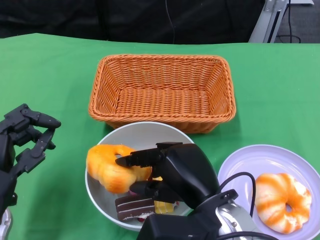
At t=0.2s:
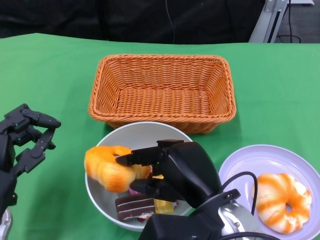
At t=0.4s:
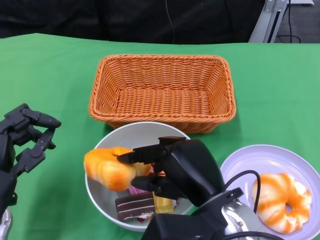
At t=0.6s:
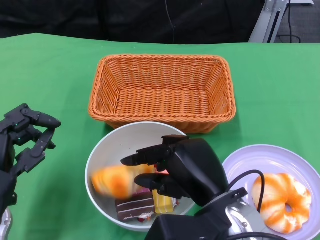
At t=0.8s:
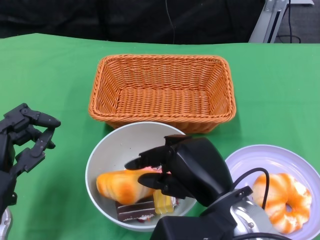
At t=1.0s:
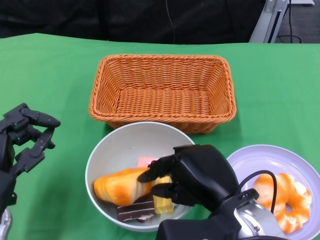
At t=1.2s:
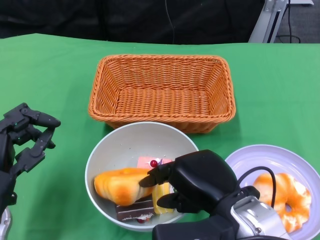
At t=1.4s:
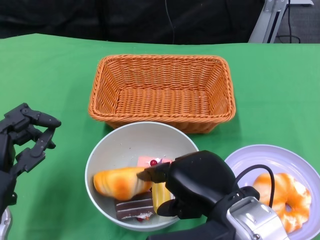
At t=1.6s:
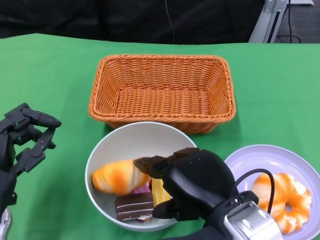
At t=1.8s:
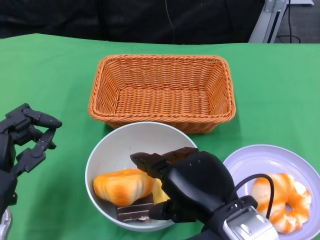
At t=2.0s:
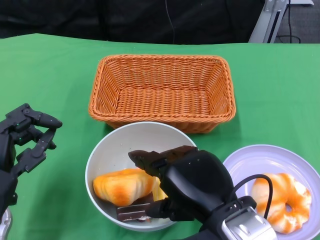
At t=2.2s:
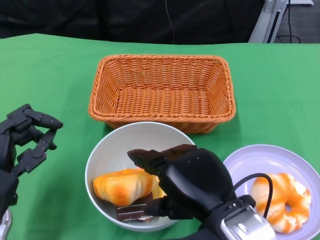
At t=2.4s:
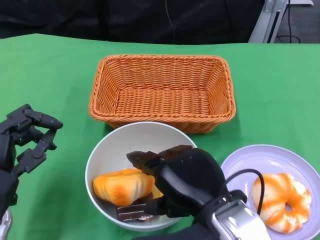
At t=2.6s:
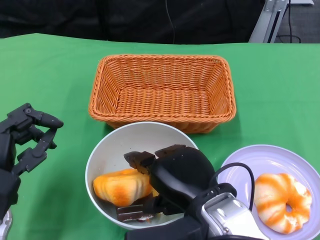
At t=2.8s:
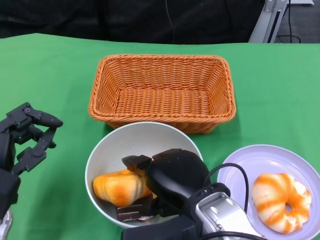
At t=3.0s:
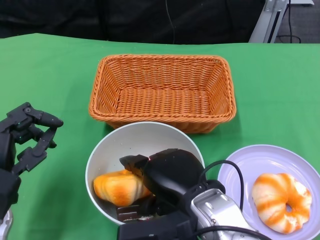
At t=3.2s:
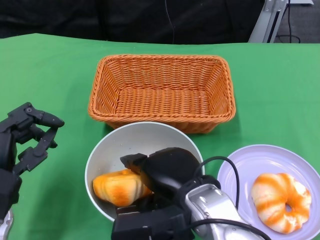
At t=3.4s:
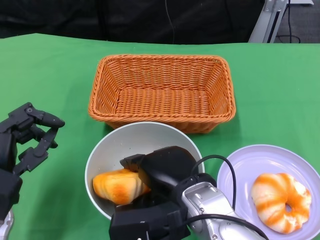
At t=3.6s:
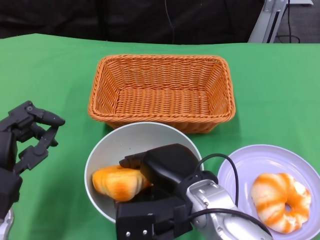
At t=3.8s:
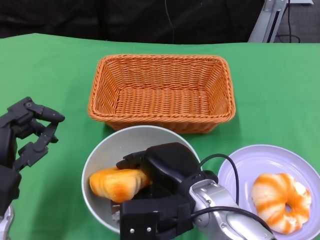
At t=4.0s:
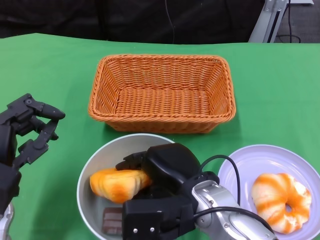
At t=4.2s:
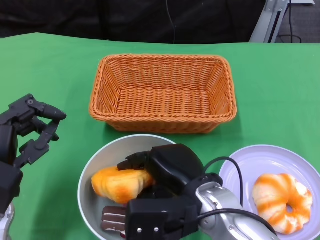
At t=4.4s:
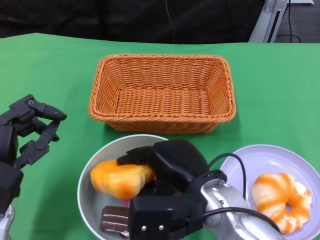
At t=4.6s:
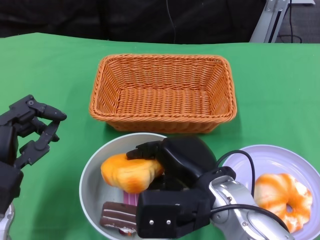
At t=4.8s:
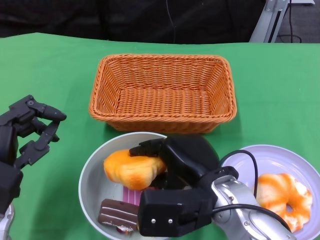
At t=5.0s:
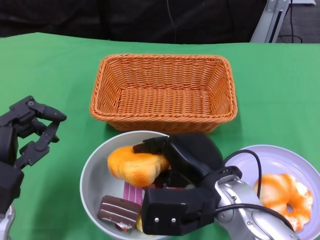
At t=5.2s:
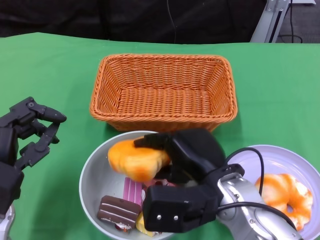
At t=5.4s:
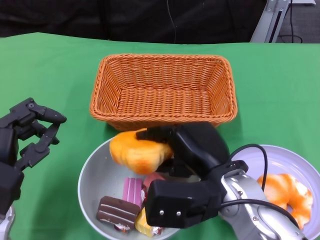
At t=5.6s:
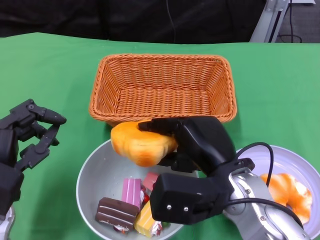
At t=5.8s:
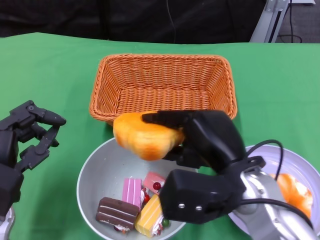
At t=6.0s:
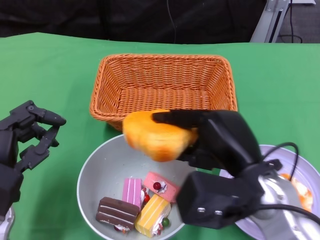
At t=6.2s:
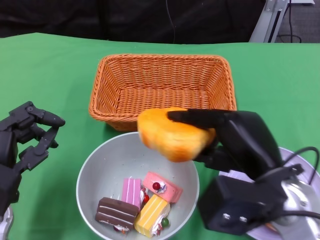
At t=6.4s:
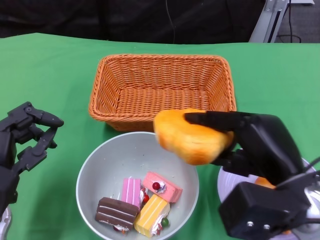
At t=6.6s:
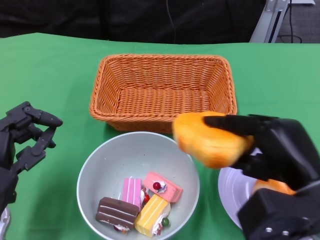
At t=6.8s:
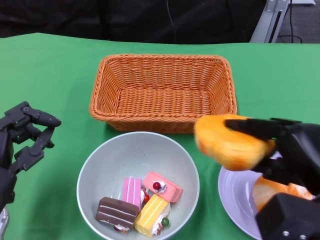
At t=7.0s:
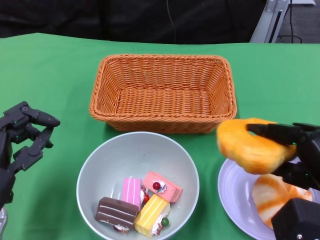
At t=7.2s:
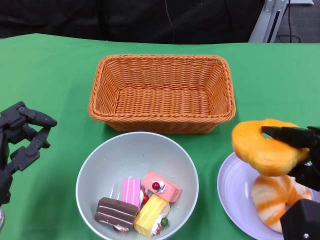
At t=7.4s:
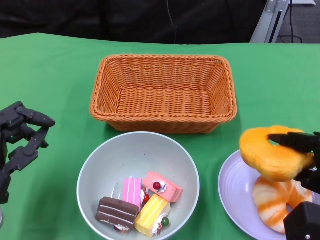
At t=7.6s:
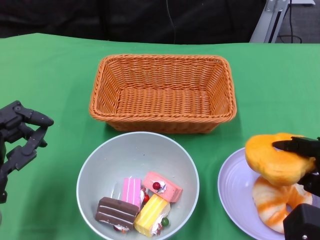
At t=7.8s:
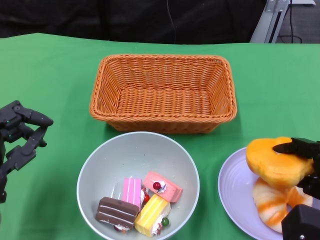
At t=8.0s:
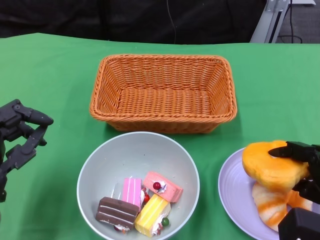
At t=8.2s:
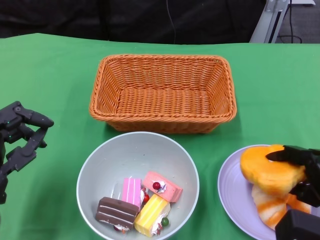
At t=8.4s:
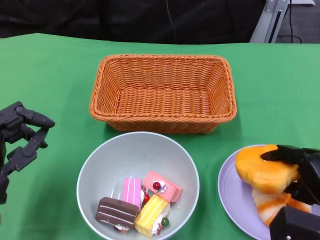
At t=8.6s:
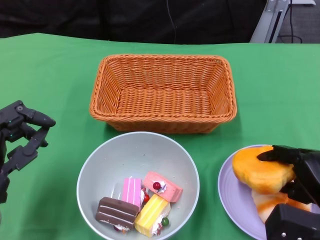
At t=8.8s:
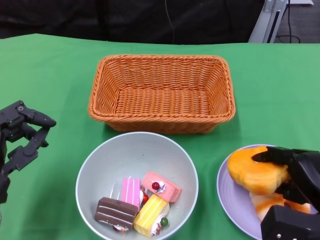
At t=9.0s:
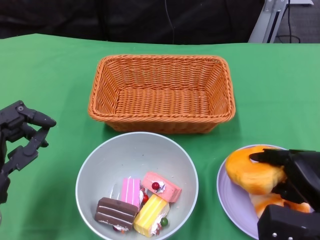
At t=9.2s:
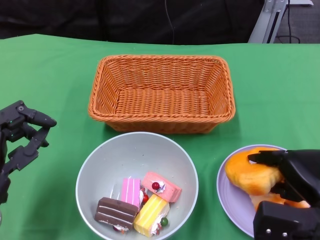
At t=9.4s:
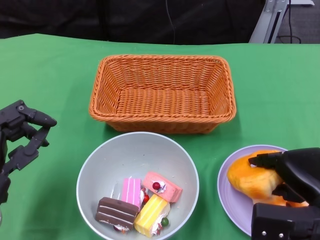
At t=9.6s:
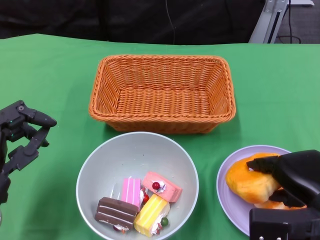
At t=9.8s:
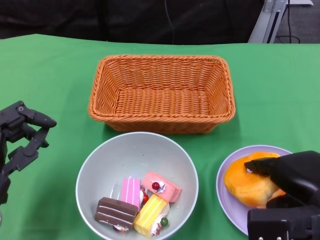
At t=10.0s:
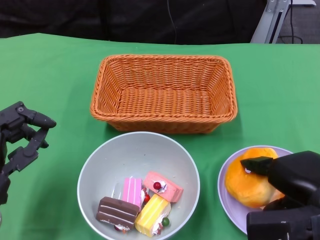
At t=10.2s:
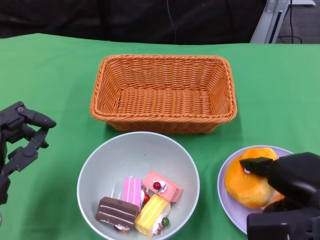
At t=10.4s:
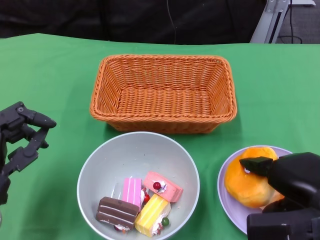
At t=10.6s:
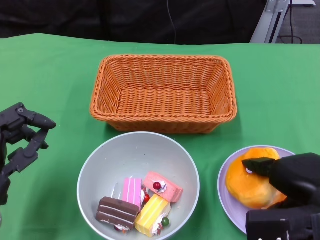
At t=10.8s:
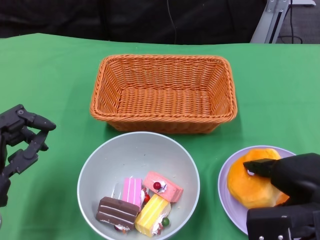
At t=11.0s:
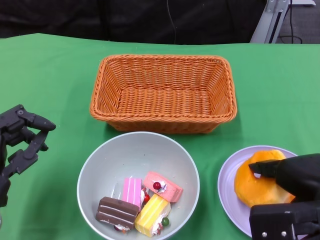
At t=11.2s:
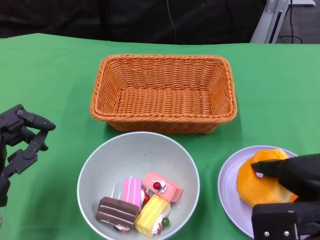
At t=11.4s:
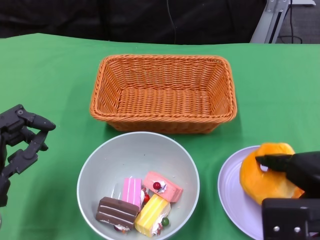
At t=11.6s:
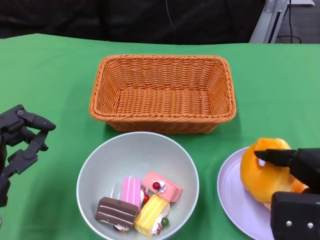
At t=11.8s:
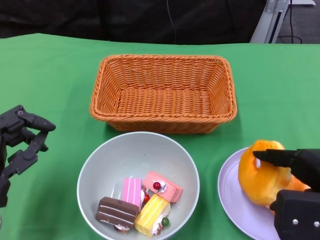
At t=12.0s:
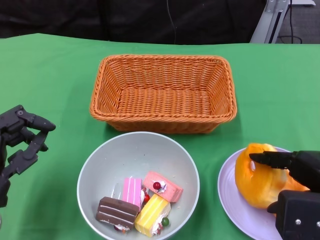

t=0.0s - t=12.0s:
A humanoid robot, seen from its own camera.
t=0.0s - t=1.6s: The right hand changes place by some 5 cm.
t=1.6s - t=3.0s: The right hand moves about 5 cm.
t=3.0s - t=4.4s: The hands move only a little.
t=4.4s - t=6.0s: The right hand heads to the right, covering about 5 cm.
t=6.0s - t=7.6s: The right hand heads to the right and downward, covering approximately 15 cm.
t=7.6s - t=9.0s: The hands make only small movements.
t=9.0s - t=10.4s: The right hand heads upward, covering some 5 cm.
t=10.4s - t=12.0s: The hands stay close to where they were, moving slightly.

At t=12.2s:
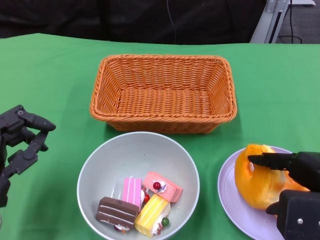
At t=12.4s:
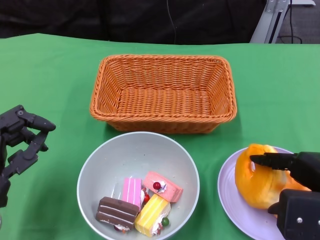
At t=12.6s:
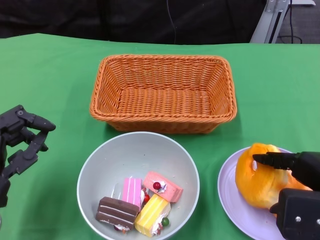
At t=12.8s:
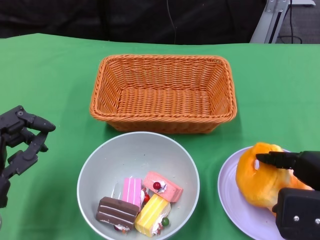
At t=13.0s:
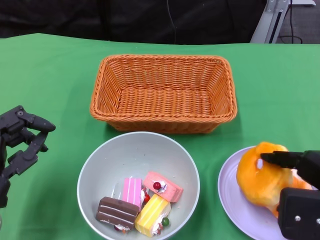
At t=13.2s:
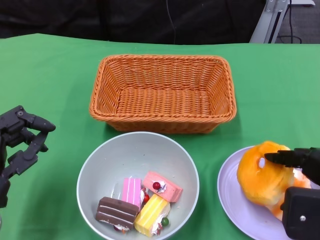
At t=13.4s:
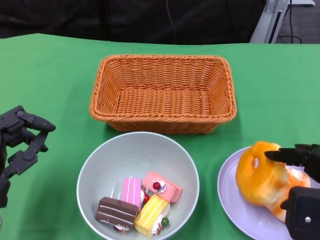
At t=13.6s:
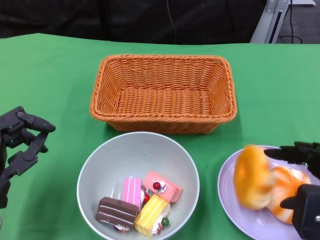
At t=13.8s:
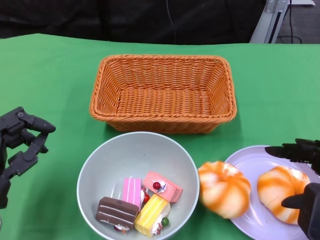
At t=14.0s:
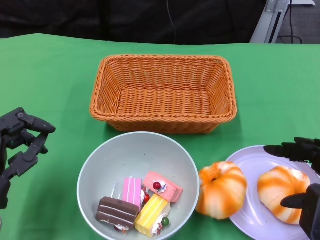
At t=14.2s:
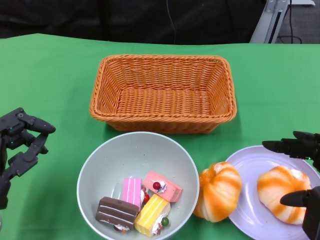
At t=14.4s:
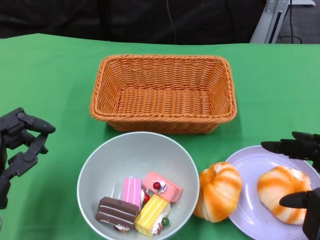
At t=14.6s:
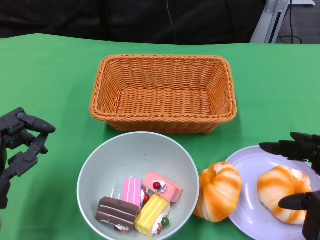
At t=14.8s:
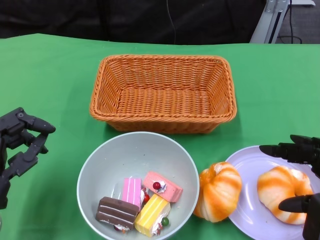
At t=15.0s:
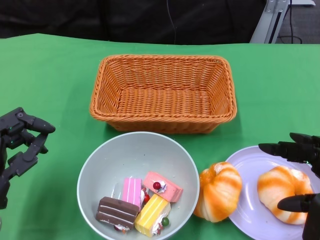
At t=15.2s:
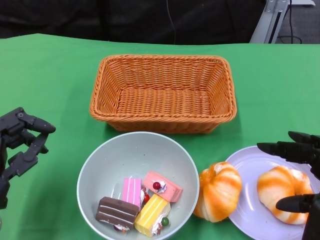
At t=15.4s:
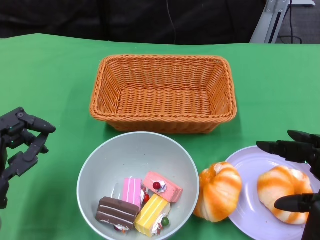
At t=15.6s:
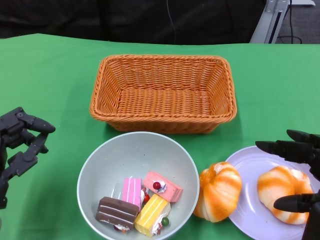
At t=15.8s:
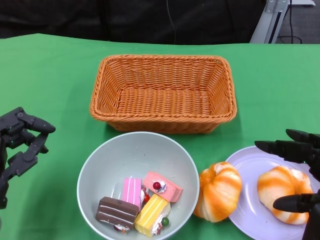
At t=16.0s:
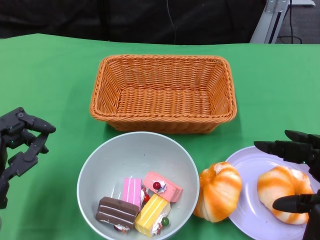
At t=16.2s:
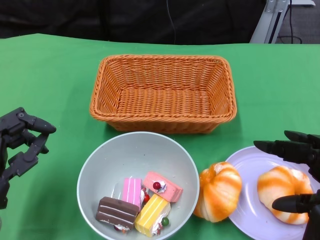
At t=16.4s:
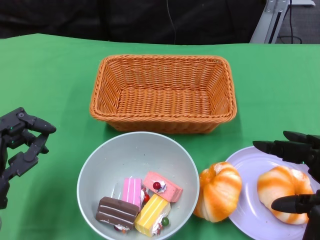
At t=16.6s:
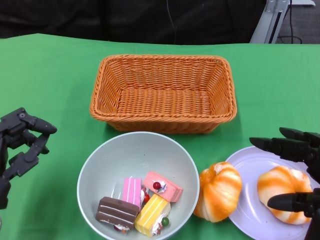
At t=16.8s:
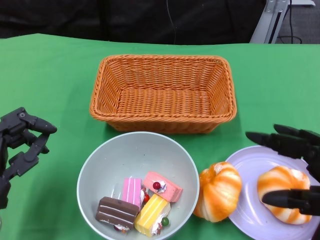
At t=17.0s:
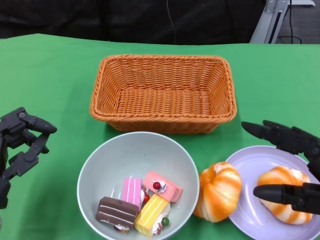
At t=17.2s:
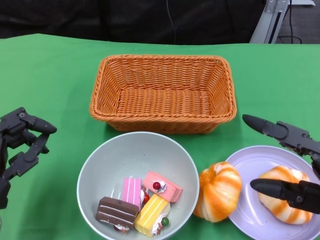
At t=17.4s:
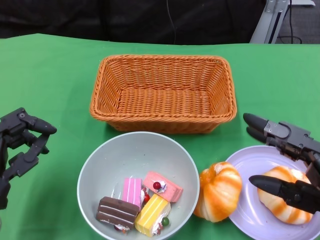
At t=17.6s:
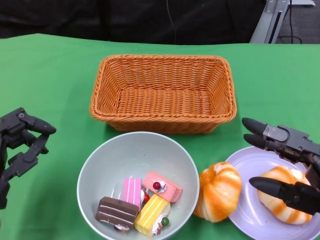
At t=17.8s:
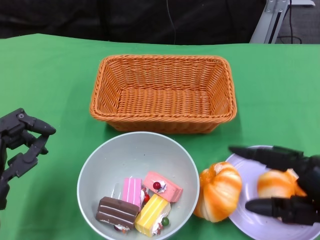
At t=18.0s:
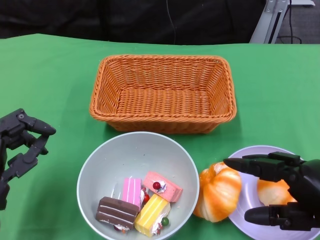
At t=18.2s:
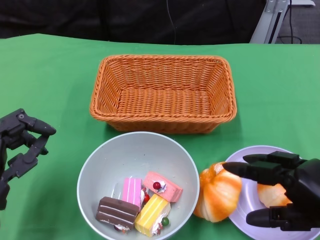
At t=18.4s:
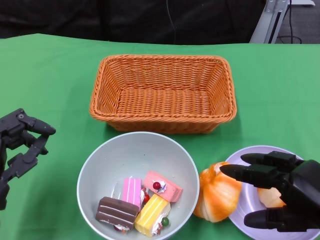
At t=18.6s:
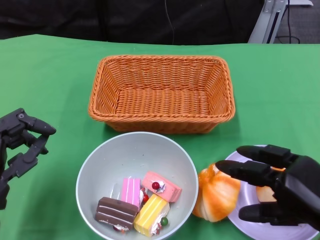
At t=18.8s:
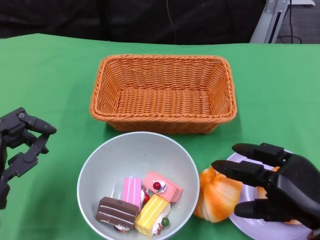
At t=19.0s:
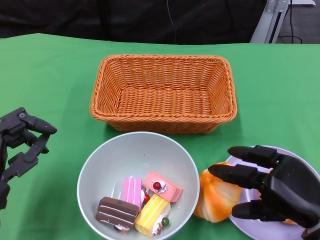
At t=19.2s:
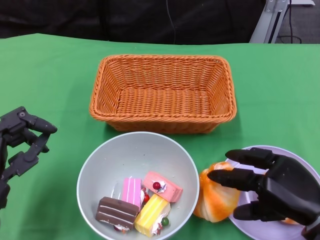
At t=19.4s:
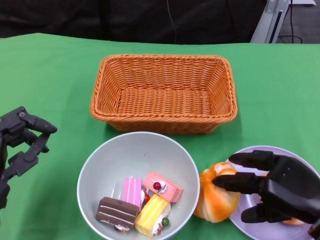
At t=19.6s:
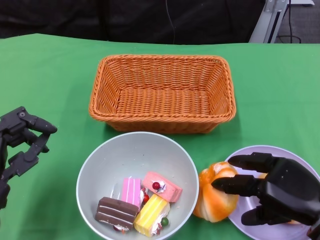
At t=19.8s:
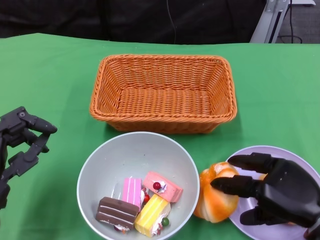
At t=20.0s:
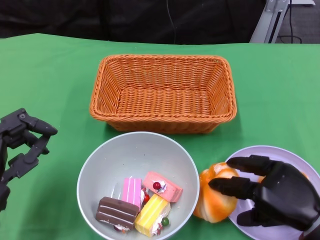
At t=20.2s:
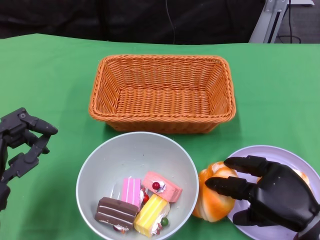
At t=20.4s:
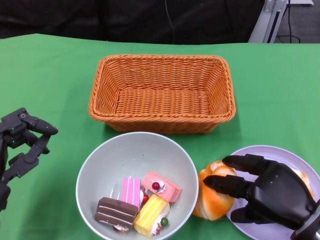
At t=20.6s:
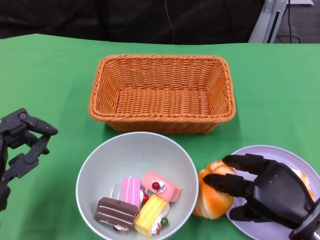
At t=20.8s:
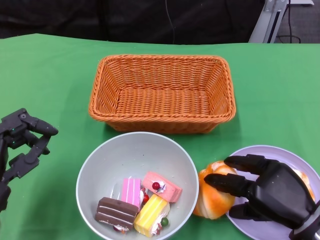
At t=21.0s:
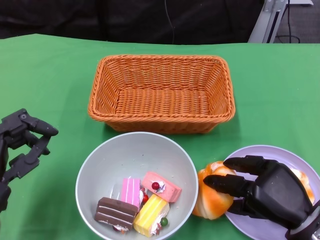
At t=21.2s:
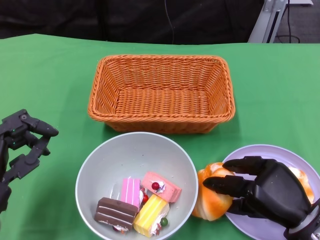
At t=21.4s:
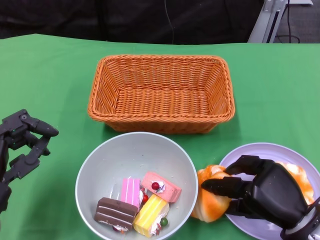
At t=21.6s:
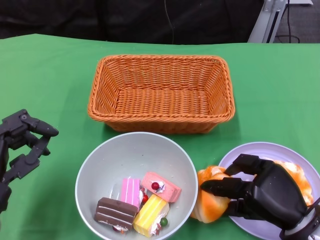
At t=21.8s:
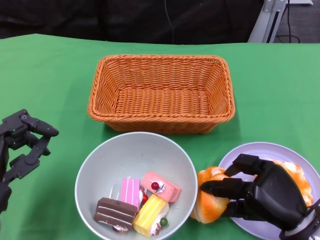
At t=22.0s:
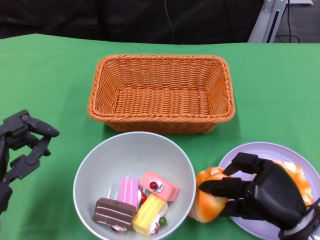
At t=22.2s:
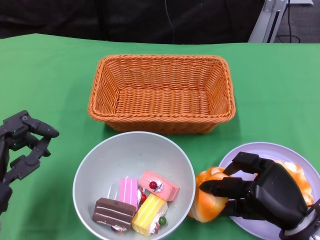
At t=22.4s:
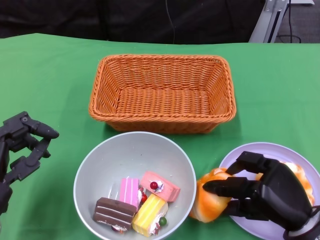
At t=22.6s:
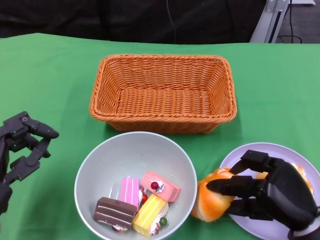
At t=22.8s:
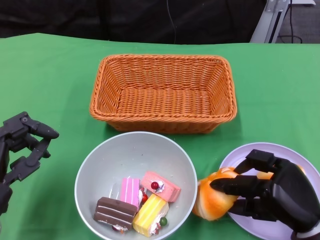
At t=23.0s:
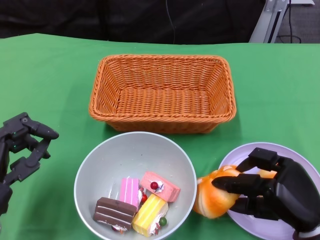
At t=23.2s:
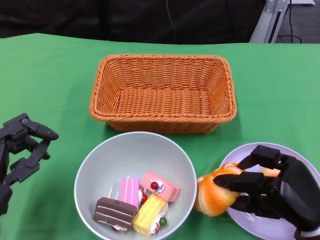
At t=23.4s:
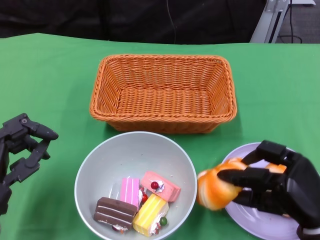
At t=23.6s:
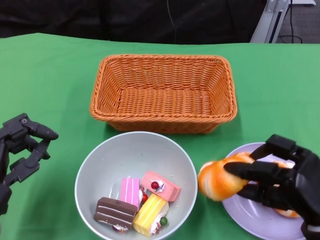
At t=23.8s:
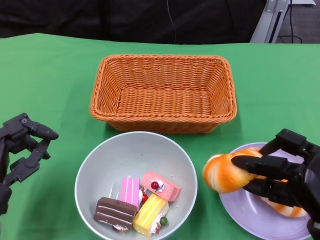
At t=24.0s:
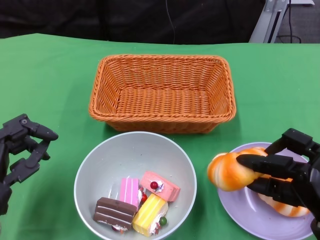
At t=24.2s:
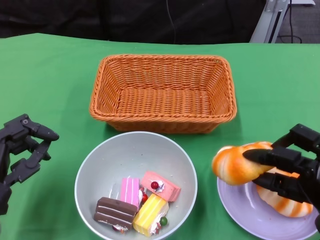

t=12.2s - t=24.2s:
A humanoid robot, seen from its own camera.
t=12.2s - t=16.6s: The hands make only small movements.
t=16.6s - t=18.2s: The right hand moves downward, roughly 5 cm.
t=18.2s - t=19.8s: The right hand travels downward by about 5 cm.
t=19.8s - t=21.2s: The hands stay close to where they were, moving slightly.
t=21.2s - t=22.6s: The hands make only small movements.
t=22.6s - t=24.2s: The hands move only a little.
